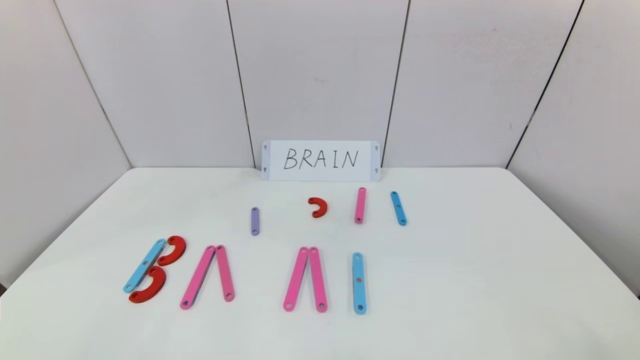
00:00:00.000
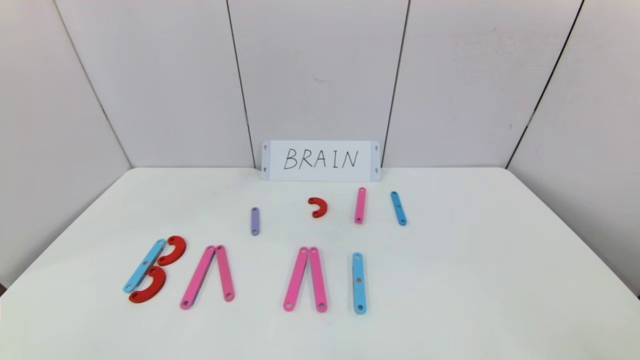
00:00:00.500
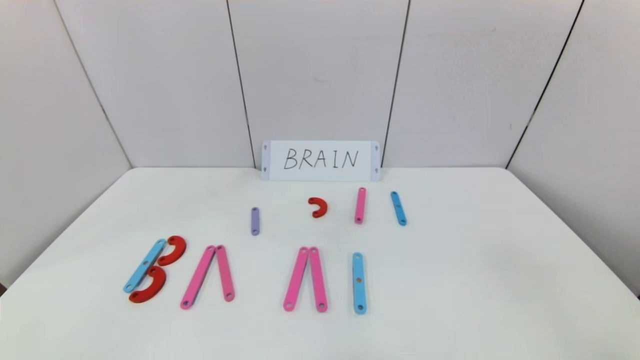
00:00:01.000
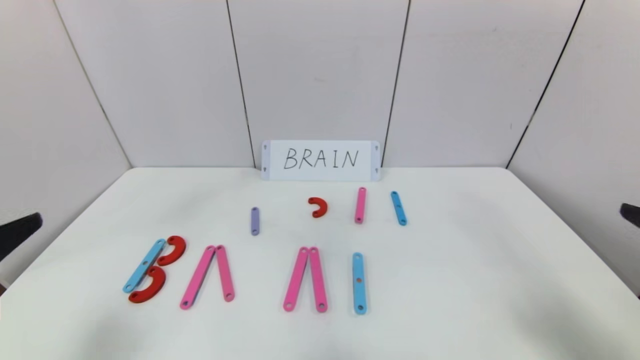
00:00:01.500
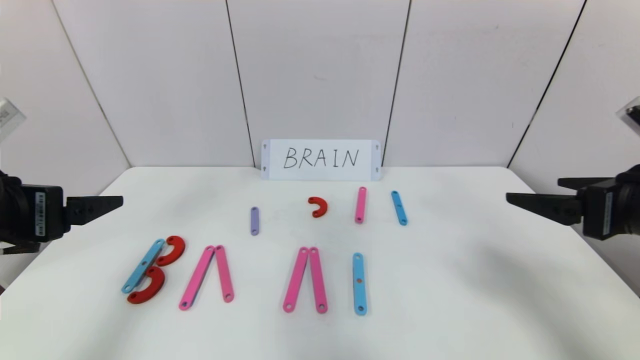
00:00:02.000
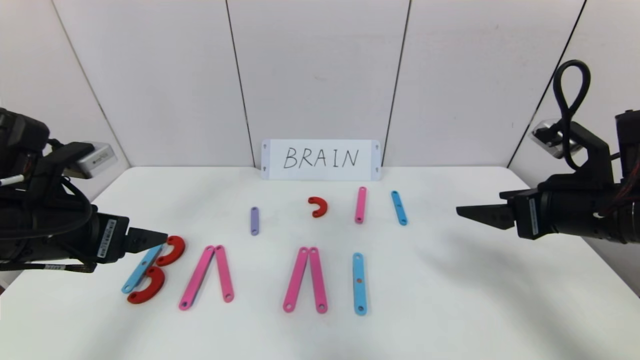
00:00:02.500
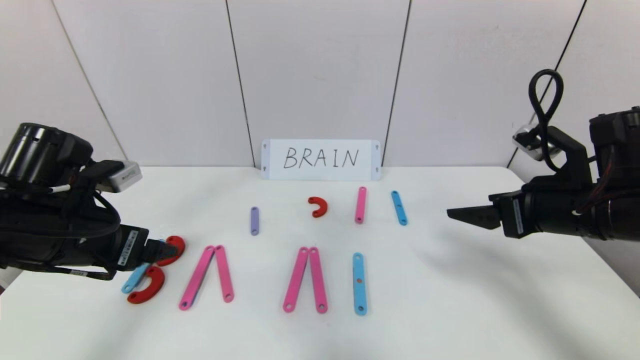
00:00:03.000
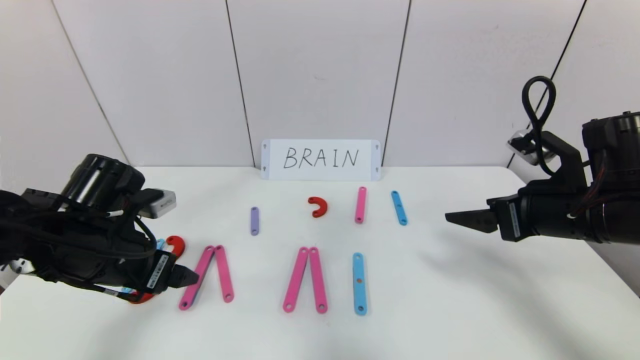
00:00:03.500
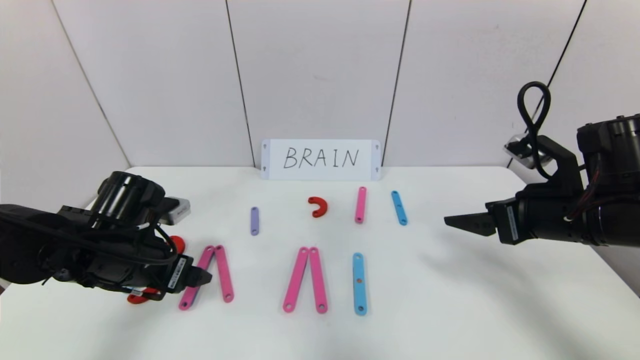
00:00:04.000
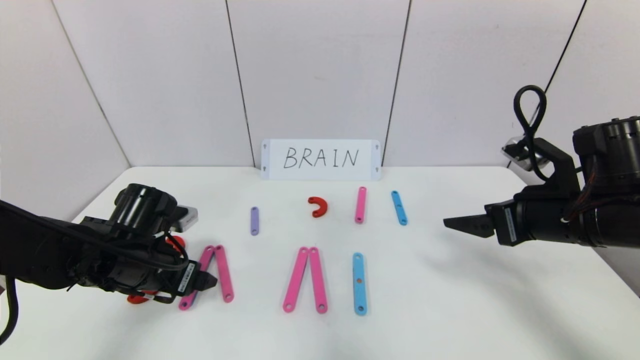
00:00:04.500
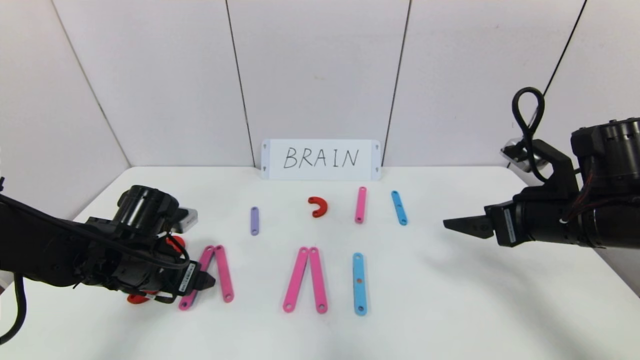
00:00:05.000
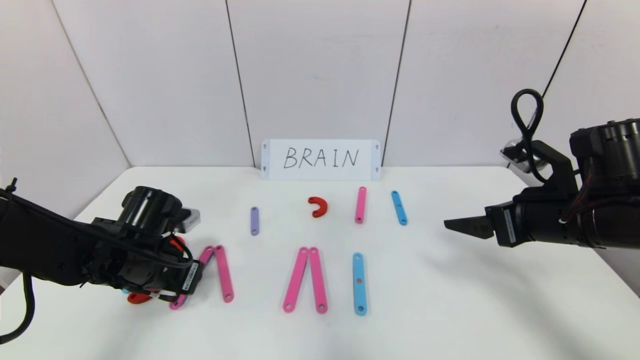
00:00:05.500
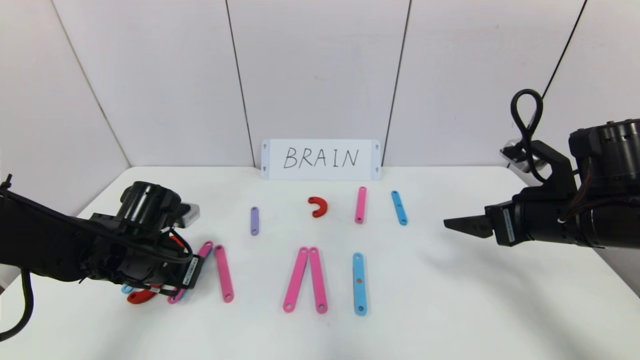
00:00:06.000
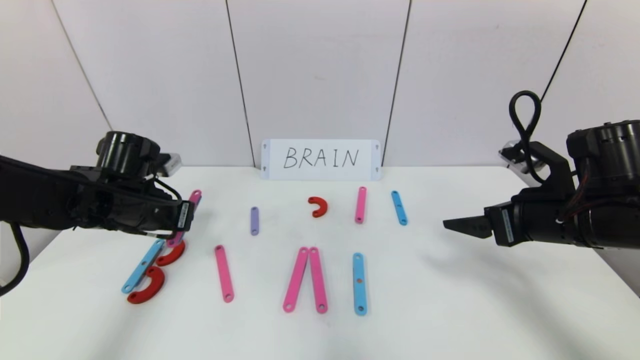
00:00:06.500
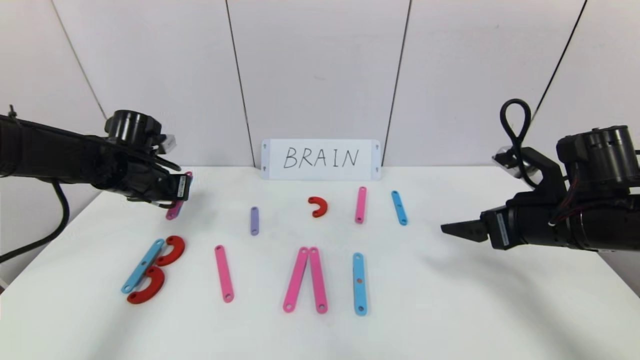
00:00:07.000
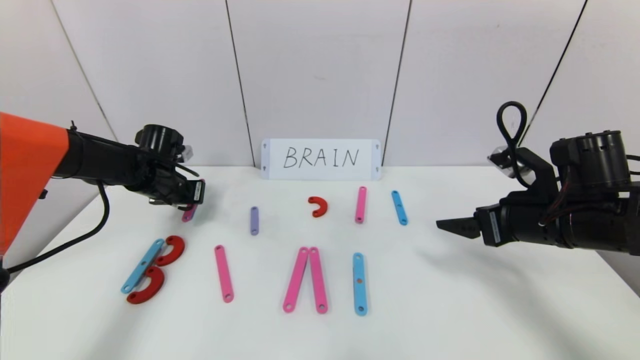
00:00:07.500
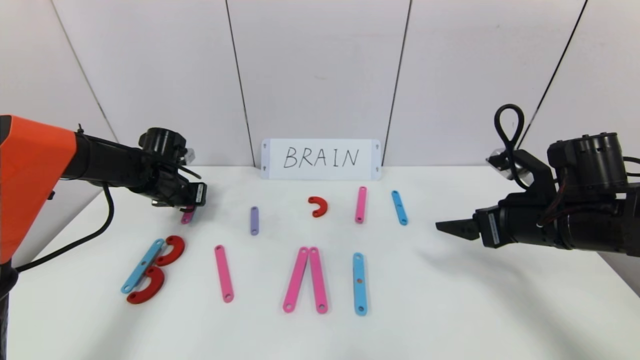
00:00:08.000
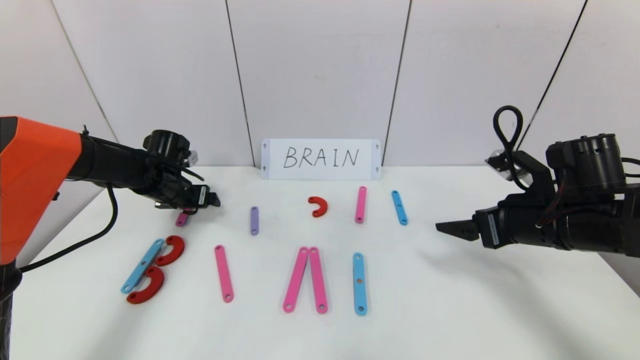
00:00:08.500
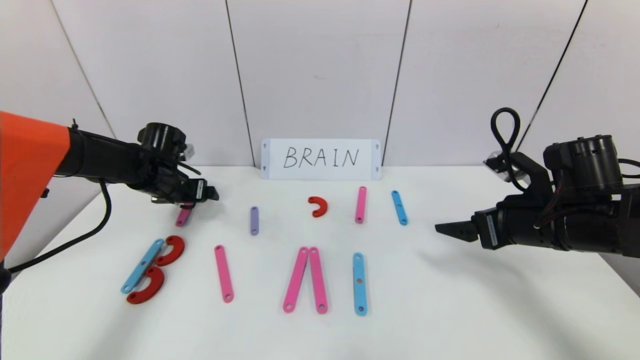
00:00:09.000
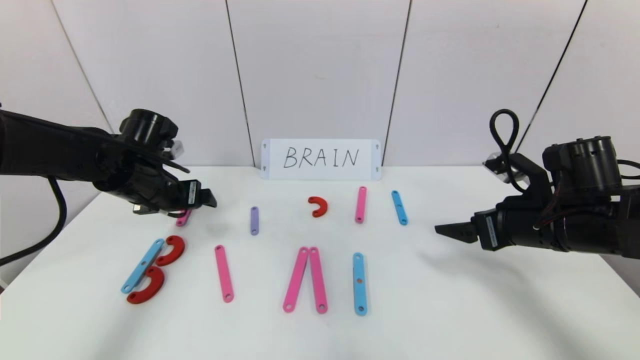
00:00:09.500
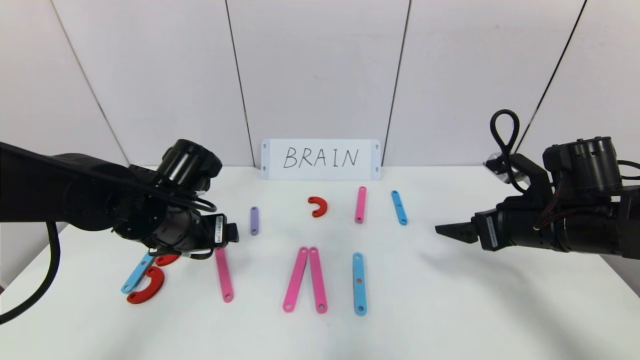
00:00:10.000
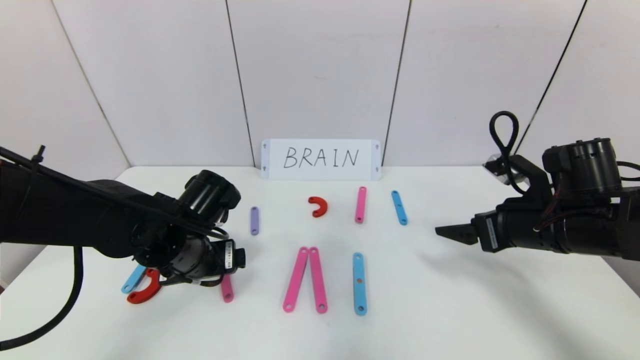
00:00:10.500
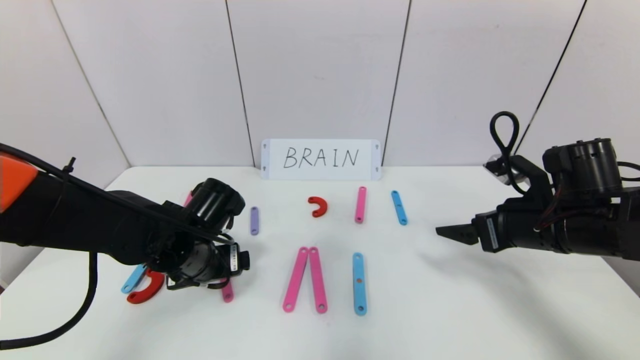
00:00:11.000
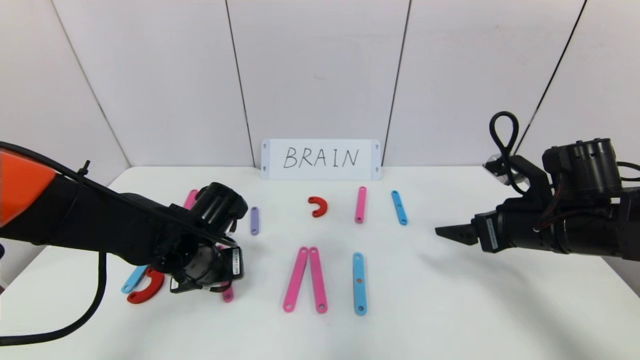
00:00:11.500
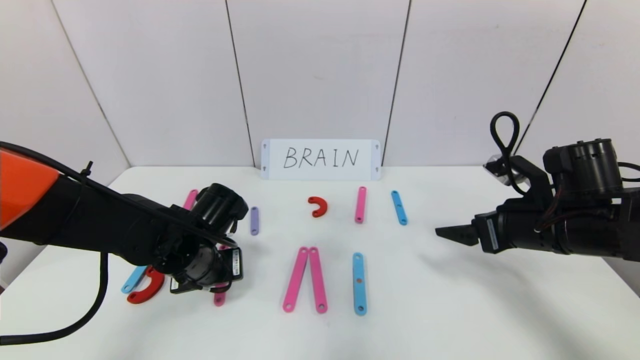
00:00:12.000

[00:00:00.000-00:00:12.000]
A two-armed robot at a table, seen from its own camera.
Task of the whole recording: rearrange the word baai as brain.
00:00:00.000 to 00:00:02.000: The right gripper heads forward and upward, covering some 25 cm. Meanwhile the left gripper travels upward and forward by roughly 25 cm.
00:00:02.000 to 00:00:04.000: The right gripper travels forward by approximately 5 cm, while the left gripper is displaced downward and forward by approximately 15 cm.
00:00:04.000 to 00:00:06.000: The left gripper closes its fingers.
00:00:06.000 to 00:00:08.000: The left gripper goes some 15 cm forward.
00:00:08.000 to 00:00:10.000: The left gripper shifts approximately 20 cm backward and to the right, and opens its fingers.
00:00:10.000 to 00:00:12.000: The left gripper goes about 5 cm downward, and closes its fingers.

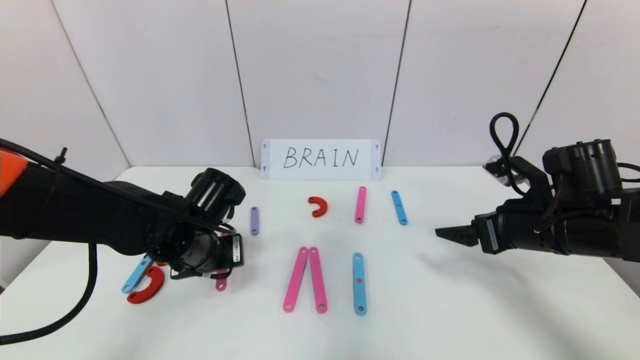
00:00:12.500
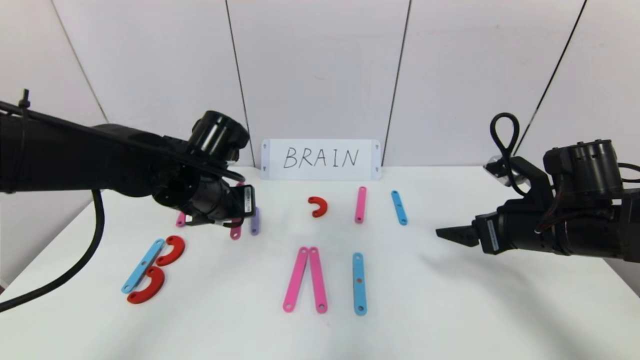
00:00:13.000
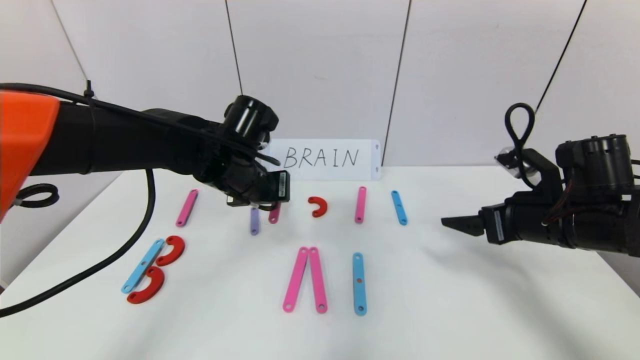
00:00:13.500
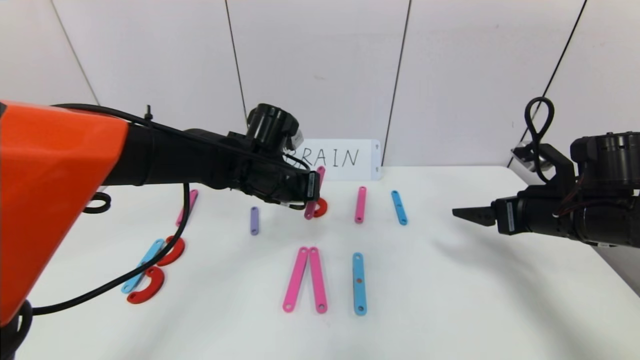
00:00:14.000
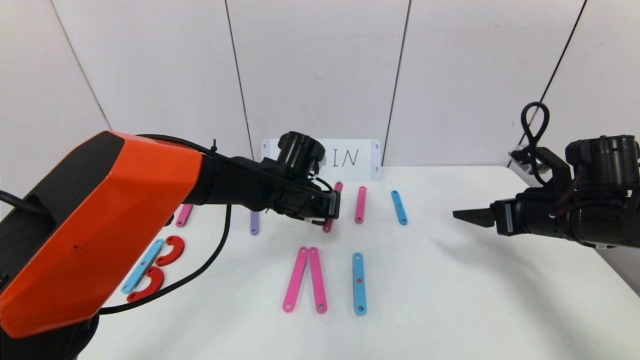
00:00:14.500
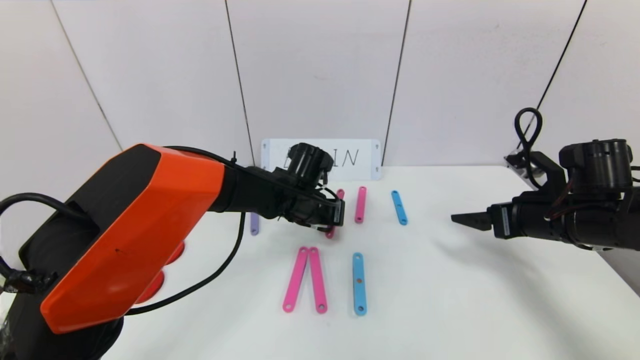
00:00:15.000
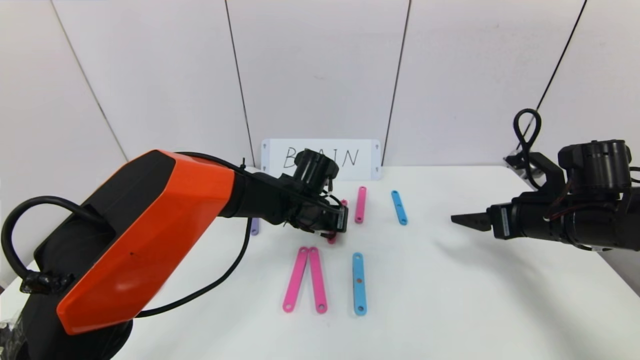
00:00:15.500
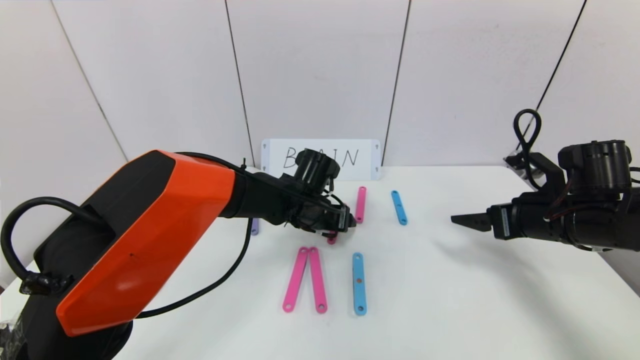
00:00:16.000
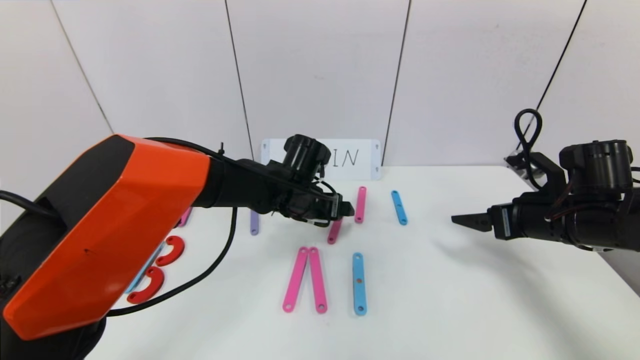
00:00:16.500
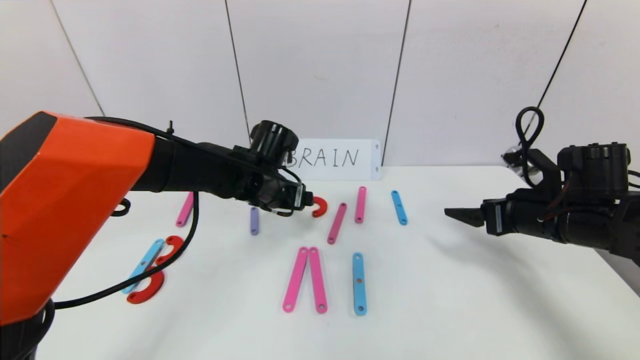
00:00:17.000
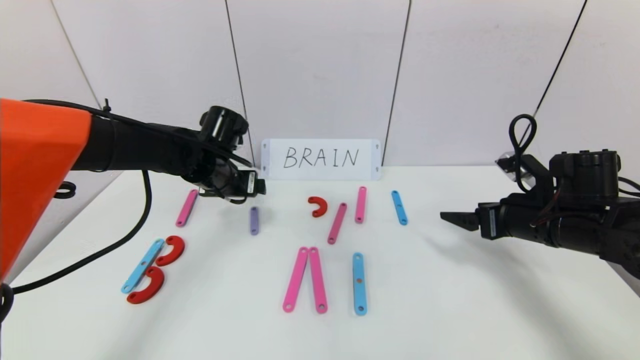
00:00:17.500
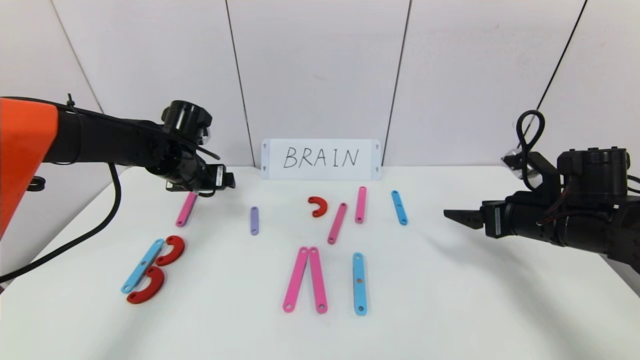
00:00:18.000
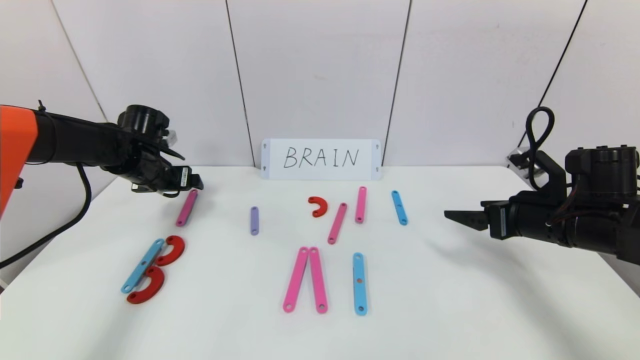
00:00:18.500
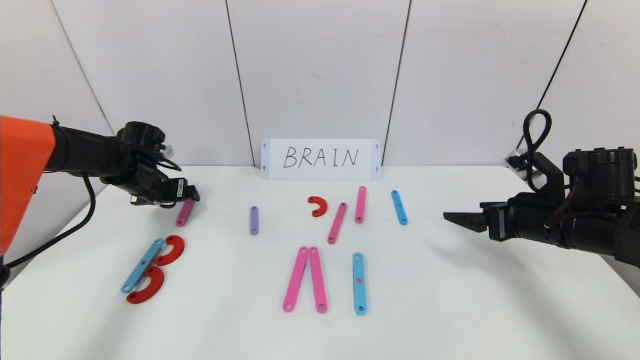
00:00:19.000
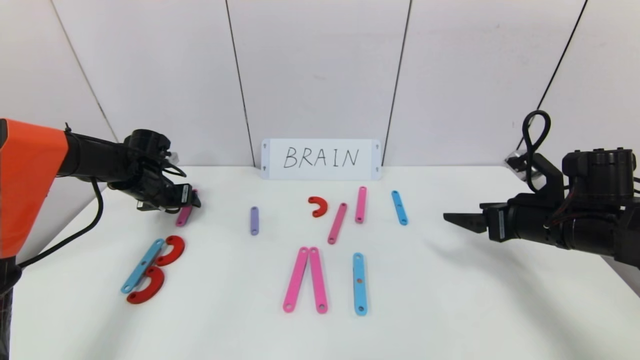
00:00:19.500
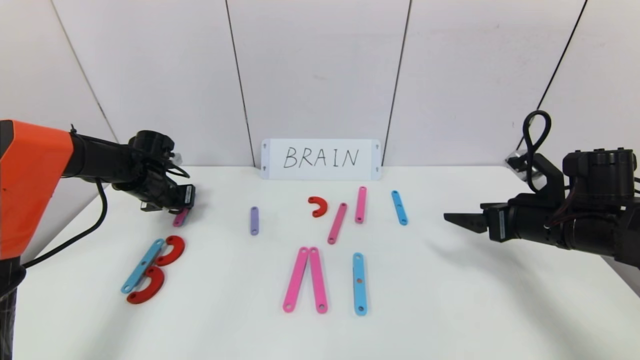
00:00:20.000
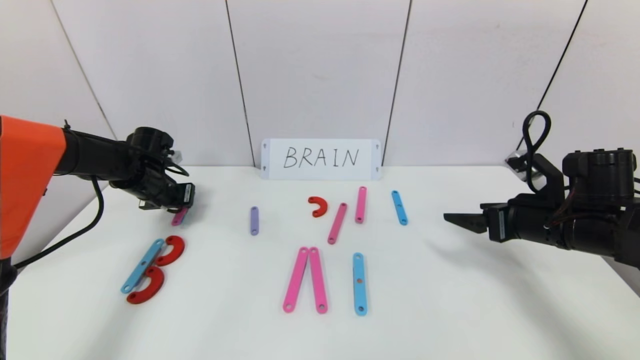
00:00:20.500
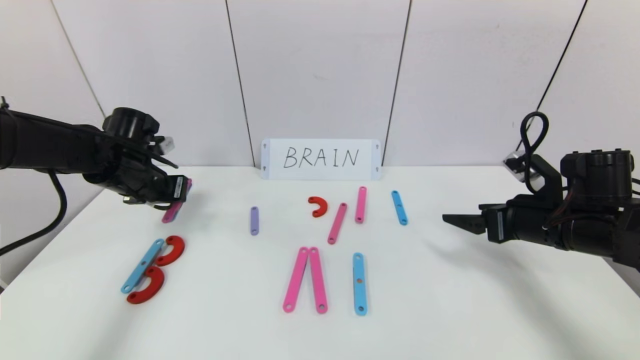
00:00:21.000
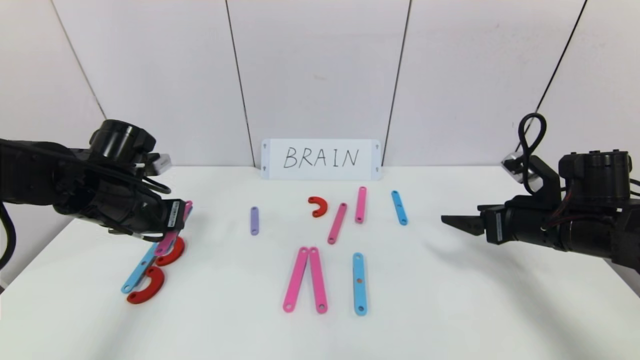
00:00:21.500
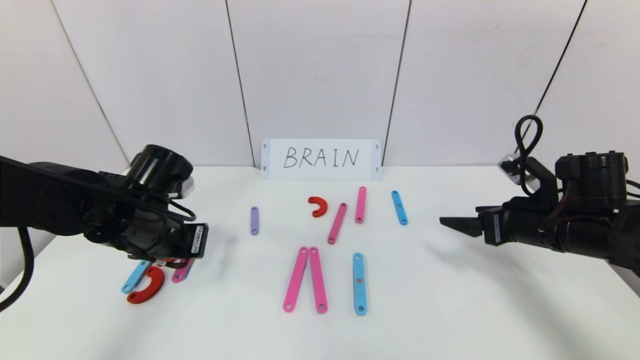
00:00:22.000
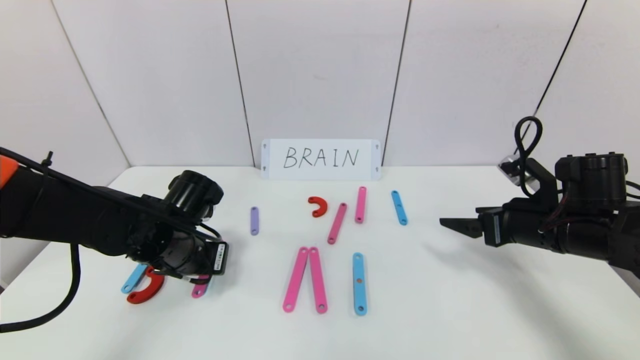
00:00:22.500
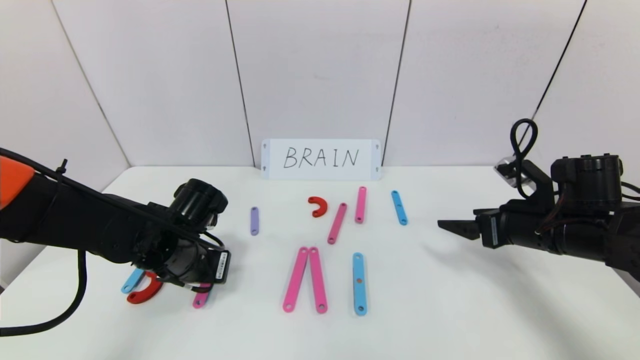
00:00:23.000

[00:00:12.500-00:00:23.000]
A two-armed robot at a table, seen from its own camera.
Task of the whole recording: rearrange the word baai as brain.
Step, 00:00:12.500 to 00:00:16.000: Disassemble the second character A.
00:00:12.500 to 00:00:14.500: The left gripper heads to the right and forward, covering roughly 15 cm.
00:00:14.500 to 00:00:16.500: The left gripper opens up.
00:00:16.500 to 00:00:19.000: The left gripper moves to the left, about 30 cm.
00:00:19.000 to 00:00:21.000: The left gripper travels backward by some 5 cm, and closes.
00:00:21.000 to 00:00:23.000: The left gripper goes approximately 15 cm to the right, backward and downward.
